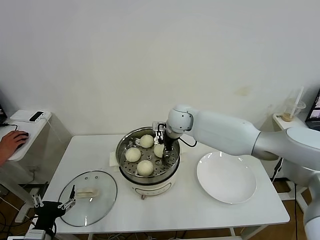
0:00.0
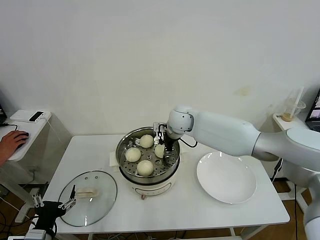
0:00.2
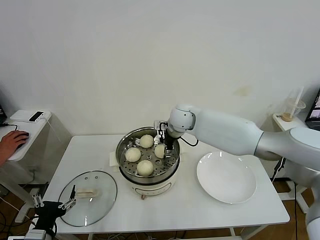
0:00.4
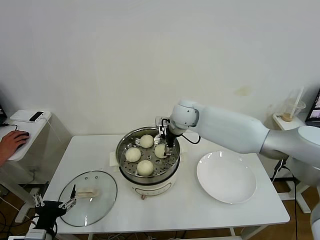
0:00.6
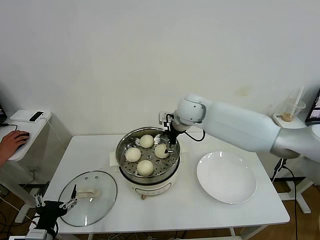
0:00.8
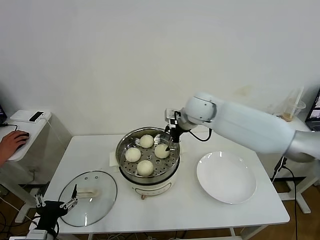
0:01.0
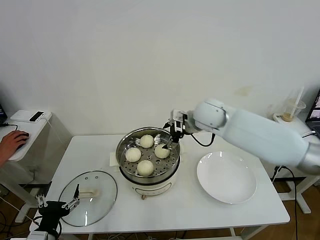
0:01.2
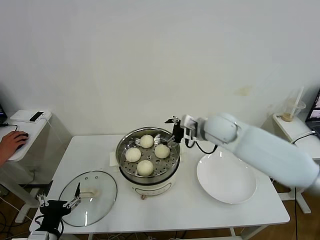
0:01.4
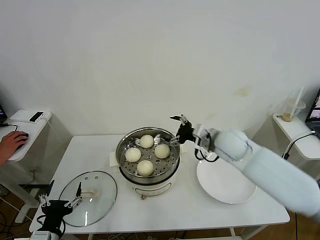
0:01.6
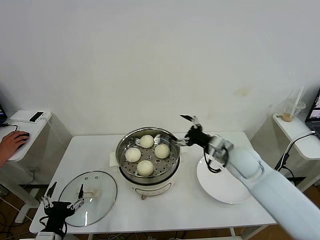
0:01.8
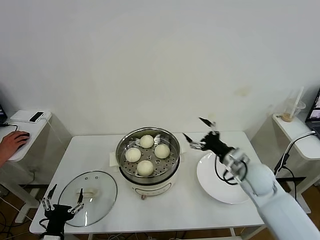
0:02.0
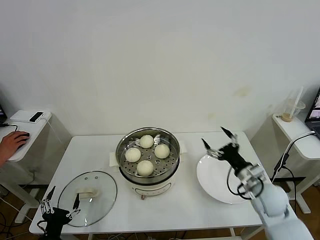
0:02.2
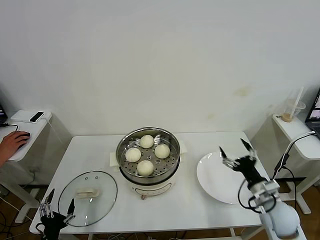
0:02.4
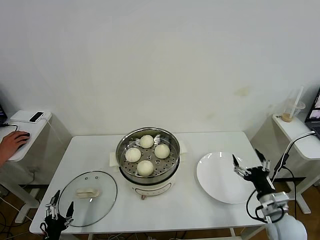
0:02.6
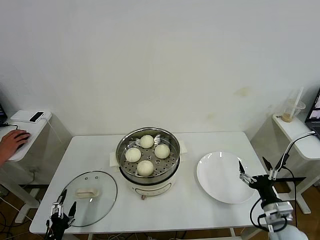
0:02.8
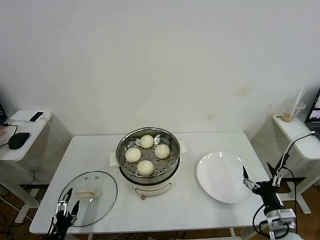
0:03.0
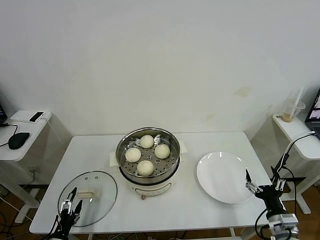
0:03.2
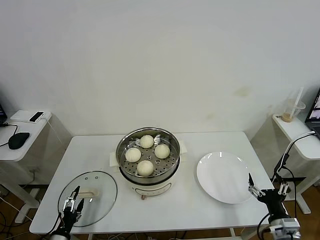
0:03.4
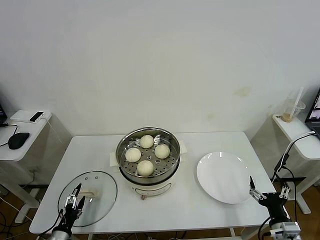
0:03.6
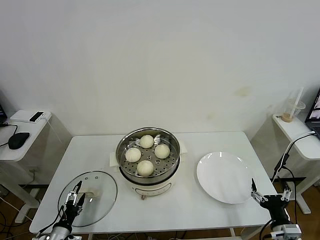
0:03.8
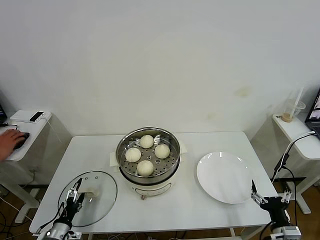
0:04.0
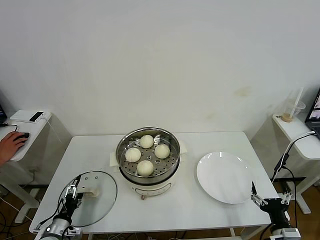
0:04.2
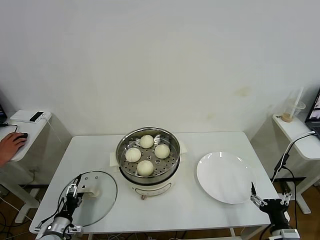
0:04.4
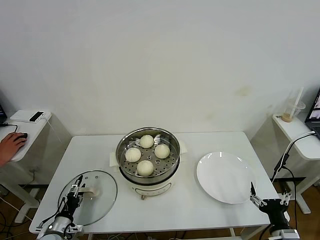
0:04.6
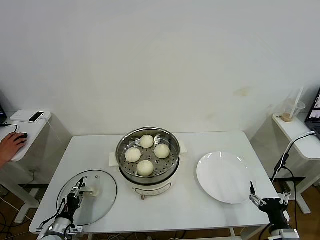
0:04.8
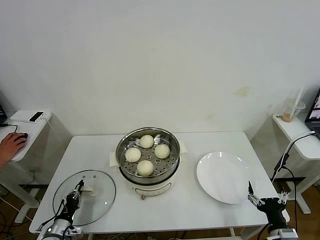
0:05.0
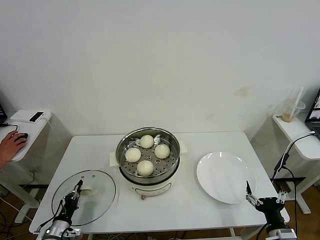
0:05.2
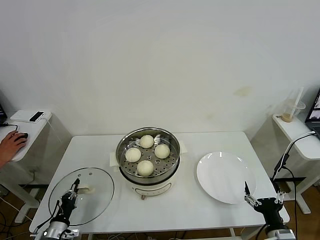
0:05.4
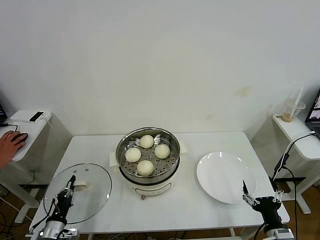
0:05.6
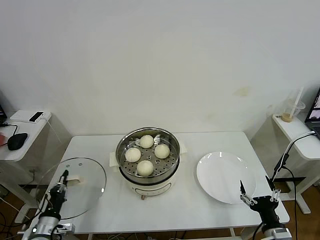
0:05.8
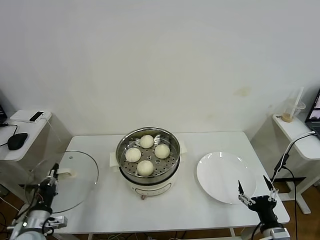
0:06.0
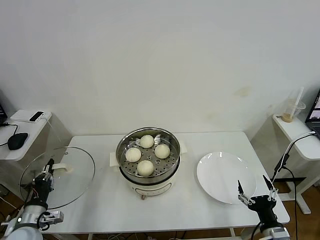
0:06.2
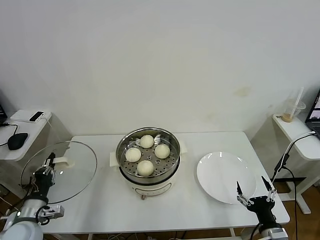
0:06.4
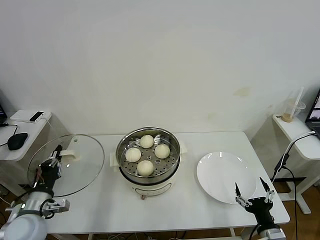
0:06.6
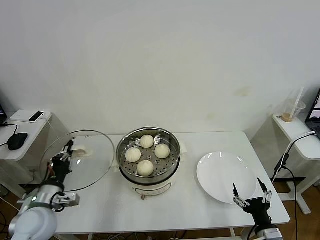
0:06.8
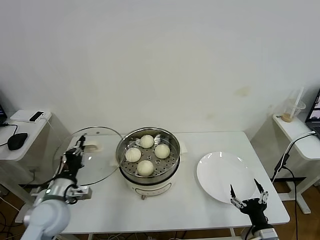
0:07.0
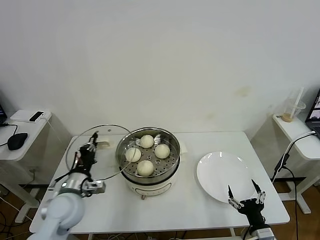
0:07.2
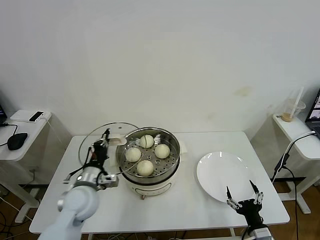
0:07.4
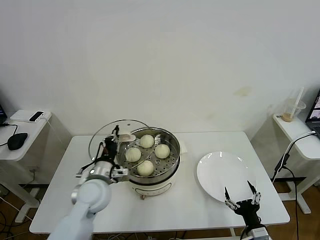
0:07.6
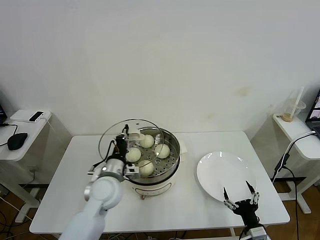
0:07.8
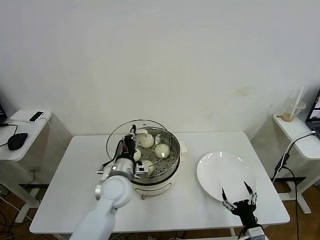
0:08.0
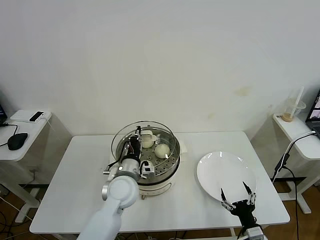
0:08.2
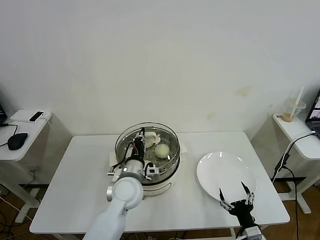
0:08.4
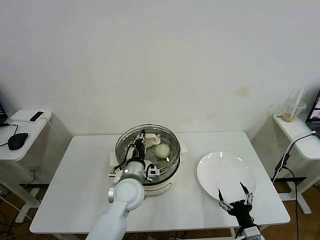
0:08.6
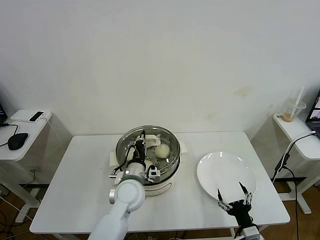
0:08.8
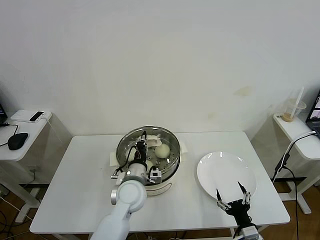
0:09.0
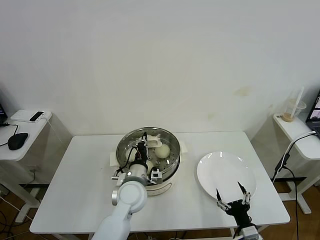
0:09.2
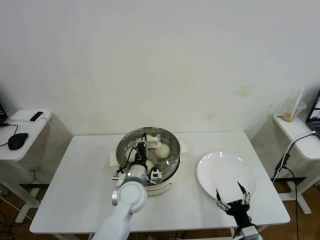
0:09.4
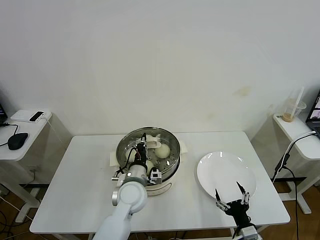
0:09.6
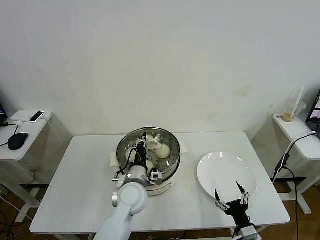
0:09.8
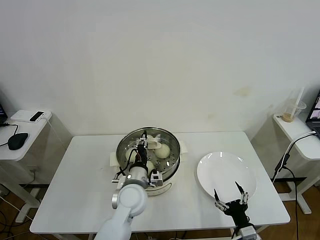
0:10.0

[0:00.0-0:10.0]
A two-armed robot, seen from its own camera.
Task of the whole recording: take steamed baozi put them in steamer then cover it.
Step, 0:00.8 to 0:05.4: Grasp the pot lid with left gripper.
0:00.0 to 0:01.4: The right gripper heads to the right and backward, covering roughly 15 cm, and opens its fingers.
0:01.4 to 0:02.8: The right gripper travels backward, downward and to the right by roughly 40 cm; the left gripper heads downward, covering some 10 cm.
0:02.8 to 0:04.2: The right gripper heads backward, covering about 5 cm. Meanwhile the left gripper heads forward, covering roughly 10 cm.
0:04.2 to 0:05.8: The left gripper shifts roughly 5 cm upward, and closes up.
0:05.8 to 0:07.2: The left gripper is displaced upward, to the right and forward by about 20 cm.
0:07.2 to 0:08.6: The left gripper heads to the right, covering roughly 20 cm.
0:08.6 to 0:10.0: The left gripper opens up.

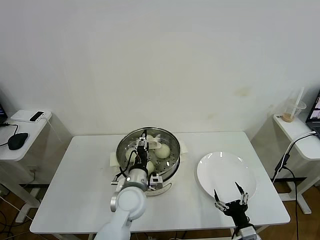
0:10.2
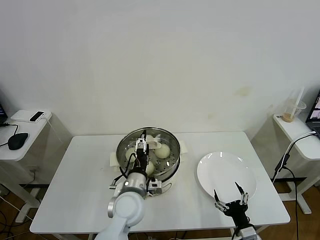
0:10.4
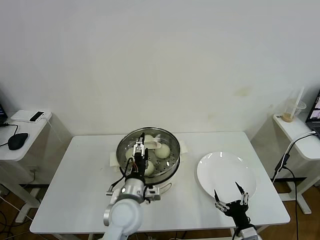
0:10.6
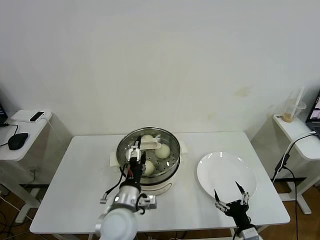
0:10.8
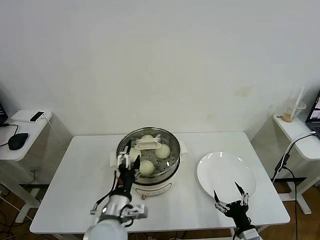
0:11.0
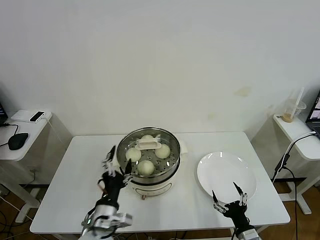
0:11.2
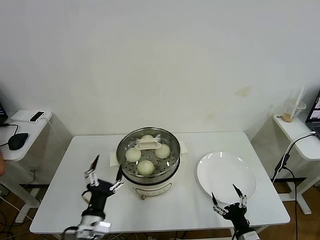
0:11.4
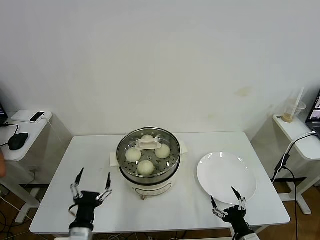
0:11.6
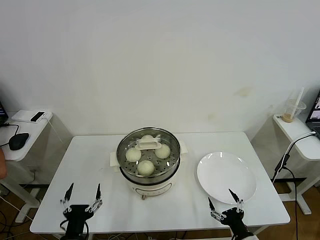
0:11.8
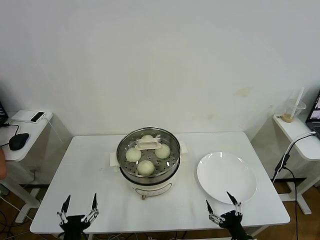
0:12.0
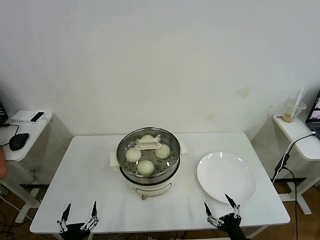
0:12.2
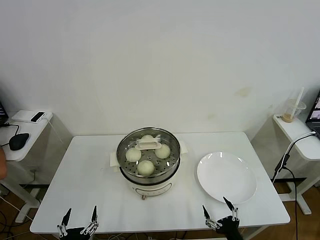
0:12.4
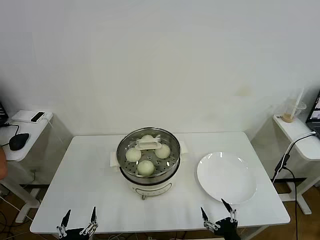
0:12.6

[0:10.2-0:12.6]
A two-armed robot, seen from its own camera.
Task of the whole recording: take steamed baozi put them in steamer then cover it.
0:10.2 to 0:11.4: The left gripper is displaced backward and to the left by about 20 cm, and opens up.
0:11.4 to 0:12.6: The left gripper travels backward, to the left and downward by approximately 15 cm.
